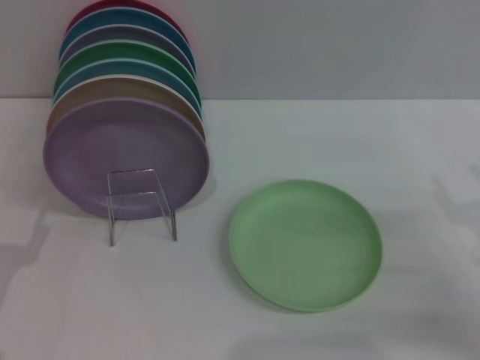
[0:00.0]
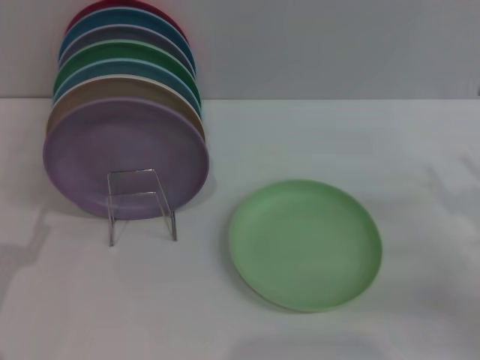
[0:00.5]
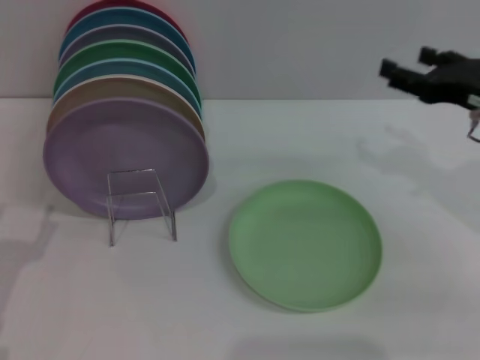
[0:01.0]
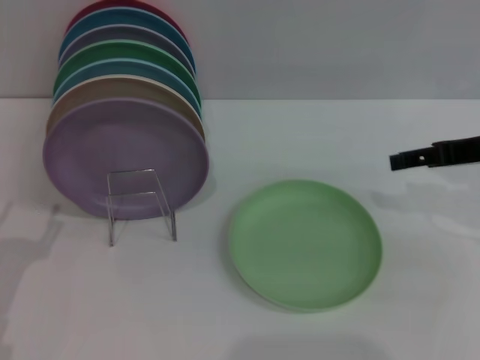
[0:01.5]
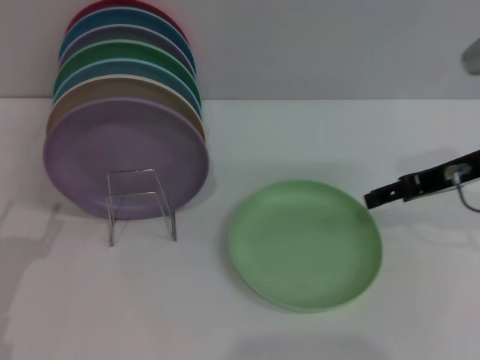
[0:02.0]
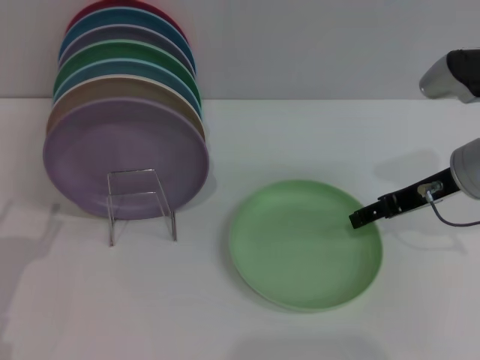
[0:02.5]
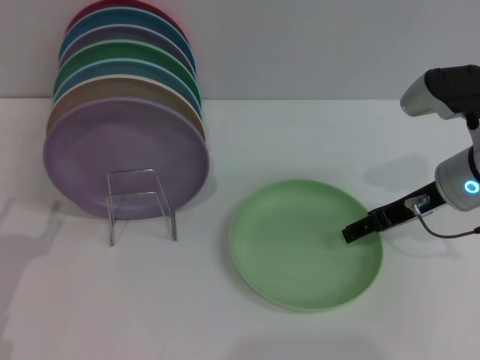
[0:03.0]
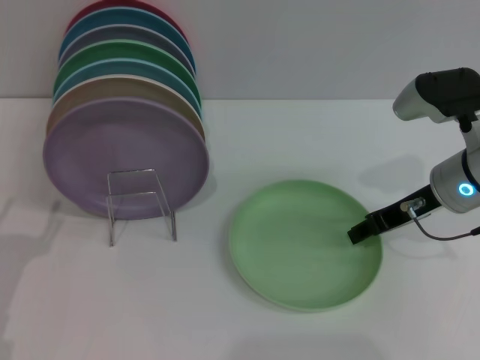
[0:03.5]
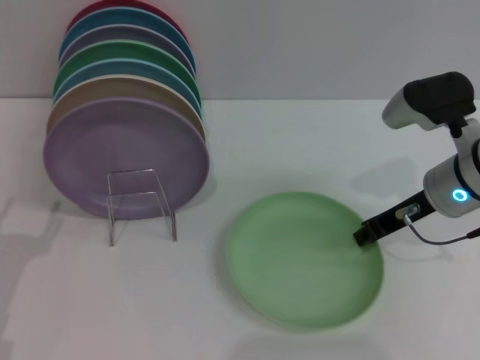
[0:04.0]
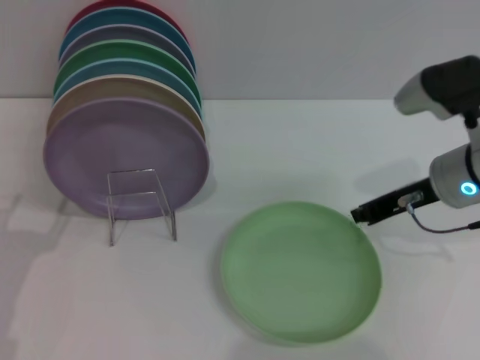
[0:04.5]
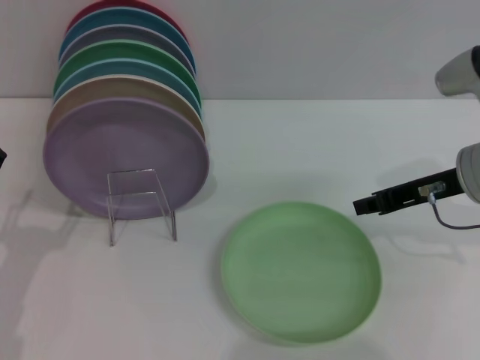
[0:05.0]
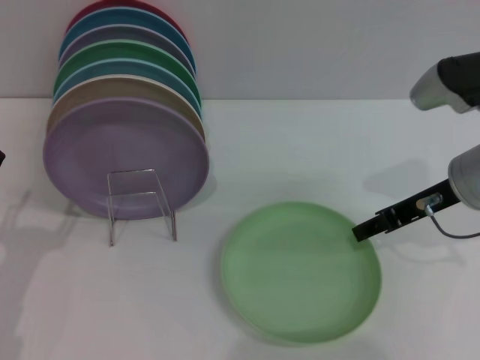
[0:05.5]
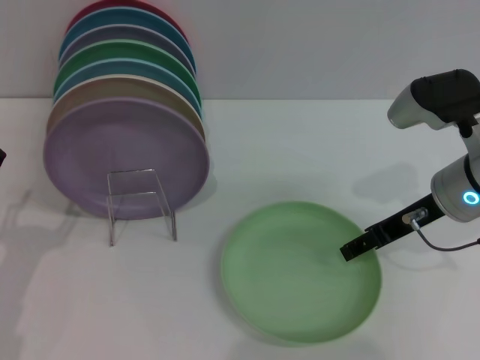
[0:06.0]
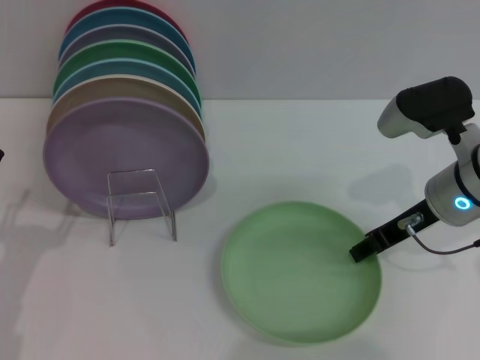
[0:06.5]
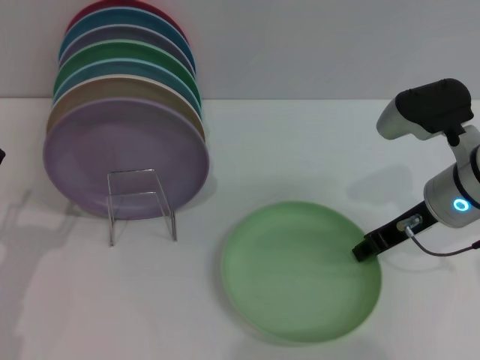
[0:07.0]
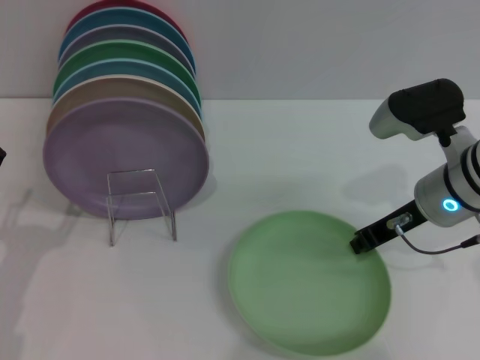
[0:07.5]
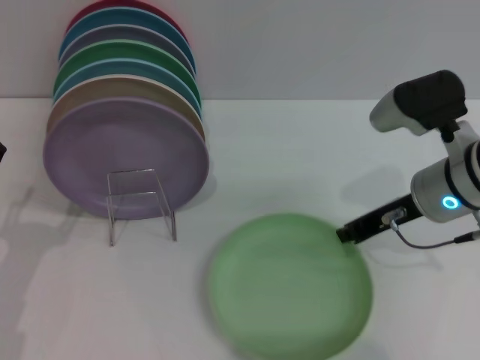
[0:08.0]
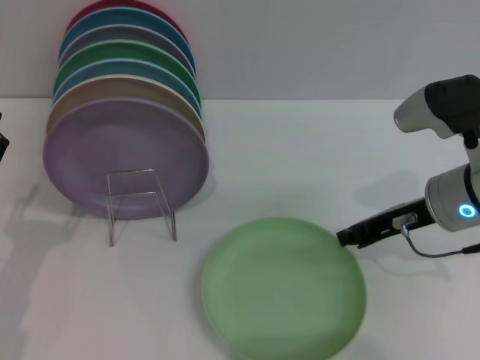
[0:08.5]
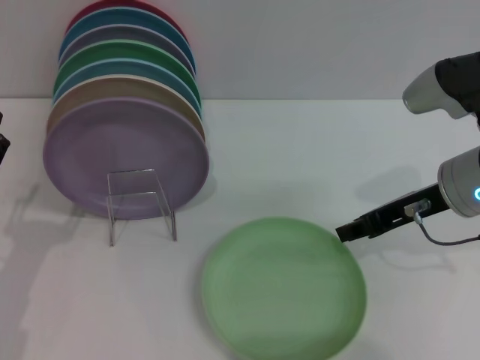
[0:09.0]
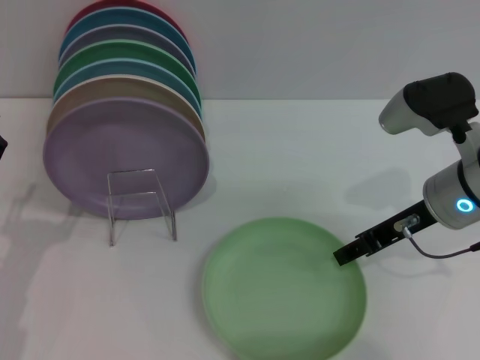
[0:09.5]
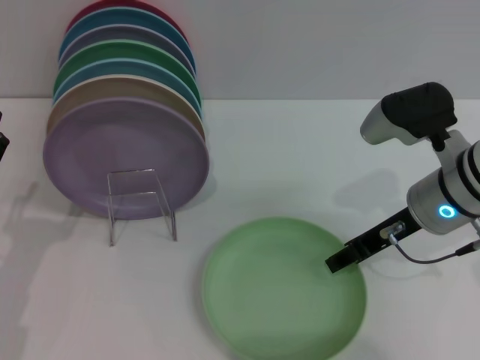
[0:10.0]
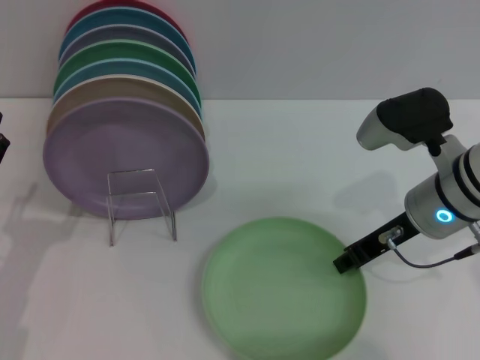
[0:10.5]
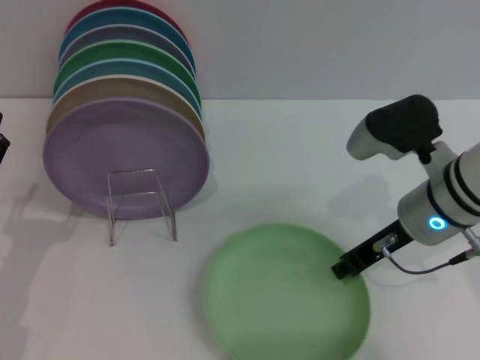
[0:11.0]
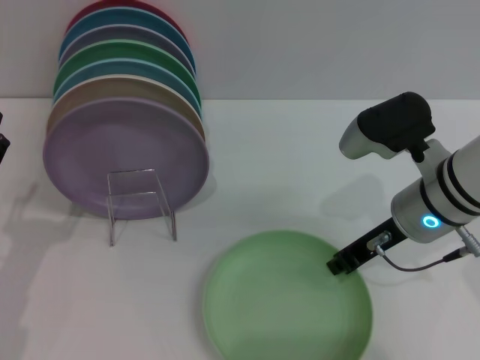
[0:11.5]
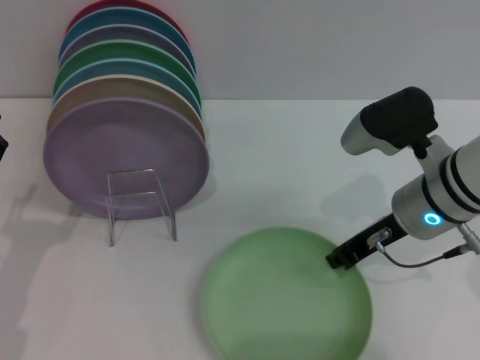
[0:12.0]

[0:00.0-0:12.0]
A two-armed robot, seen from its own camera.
Task of the whole recording: Grip the plate with one hand, pass it to the other, then set it on the shelf.
0:00.0 to 0:02.0: The right gripper heads forward, upward and to the left, covering some 15 cm.
0:02.0 to 0:04.0: The right gripper moves about 5 cm, and closes up.
0:04.0 to 0:06.0: The right gripper opens up.
0:06.0 to 0:08.0: The right gripper closes its fingers.
0:08.0 to 0:10.0: The right gripper opens its fingers.
0:10.0 to 0:12.0: The right gripper closes.

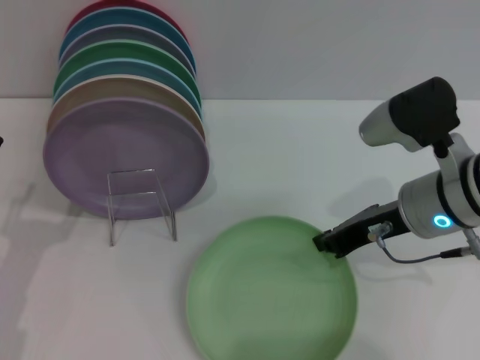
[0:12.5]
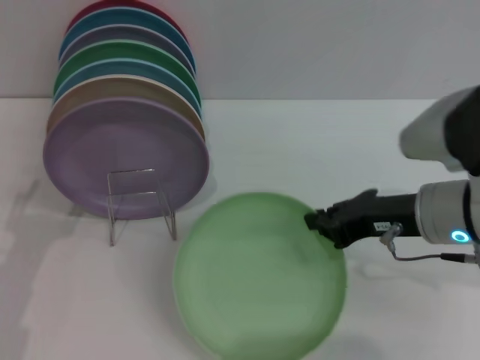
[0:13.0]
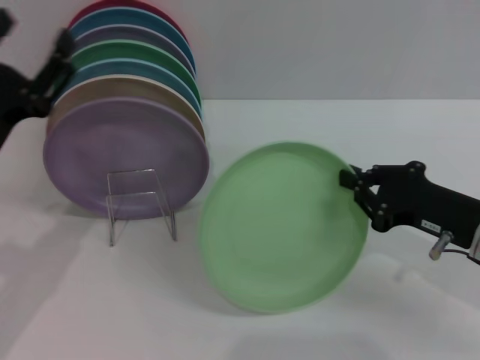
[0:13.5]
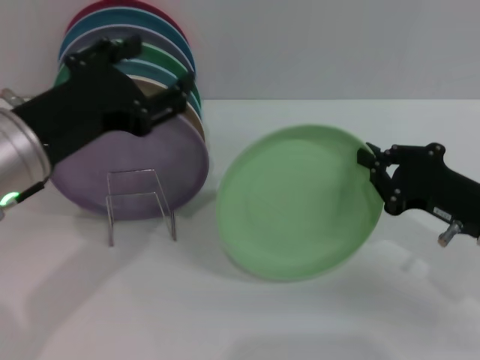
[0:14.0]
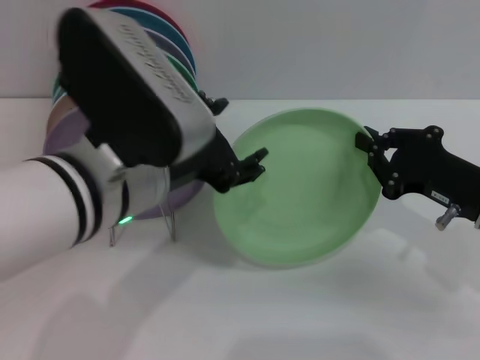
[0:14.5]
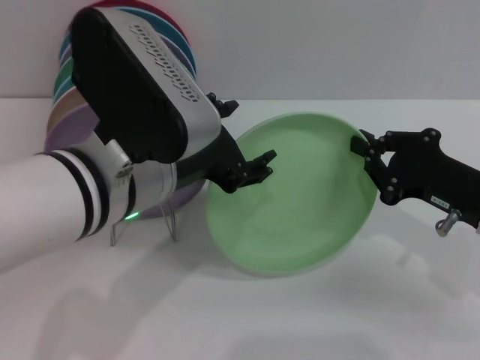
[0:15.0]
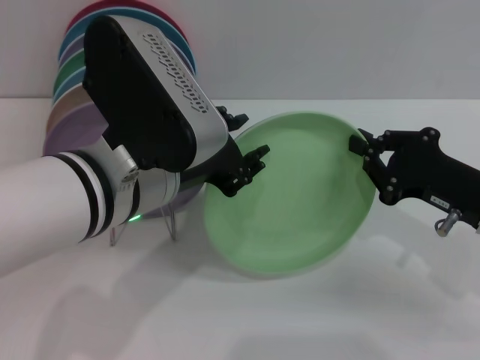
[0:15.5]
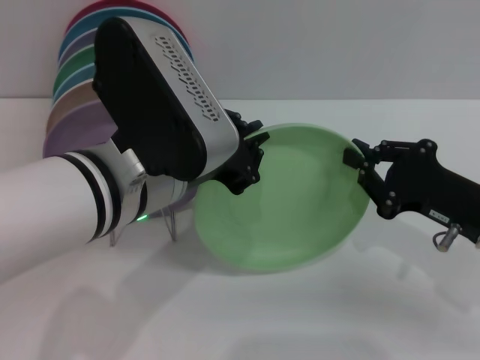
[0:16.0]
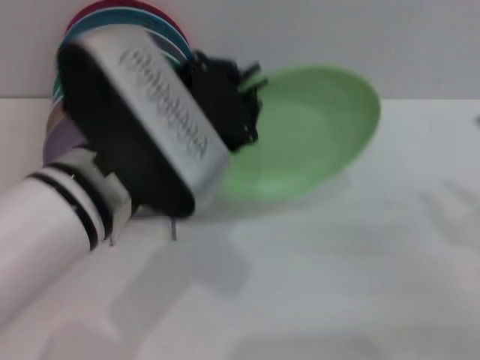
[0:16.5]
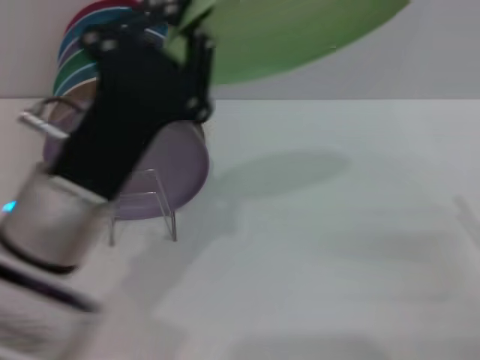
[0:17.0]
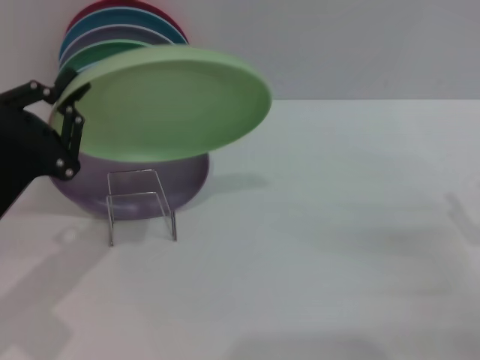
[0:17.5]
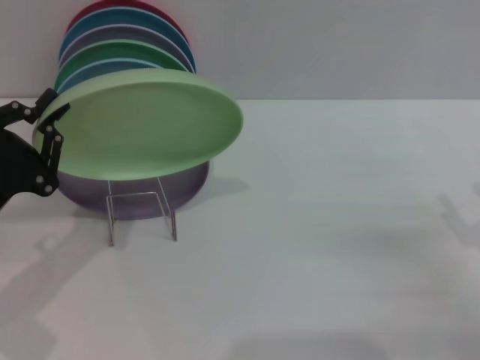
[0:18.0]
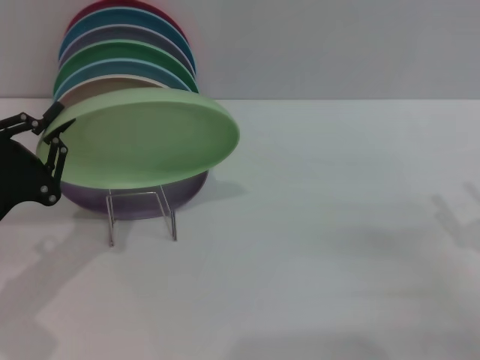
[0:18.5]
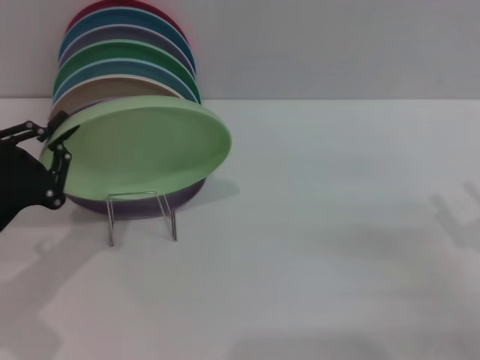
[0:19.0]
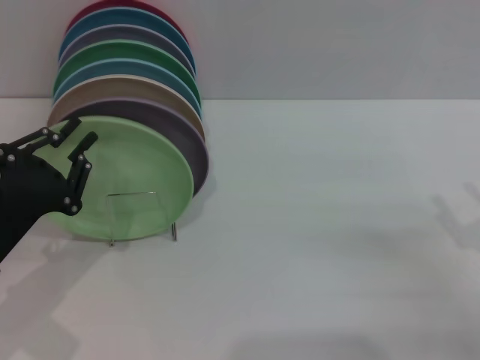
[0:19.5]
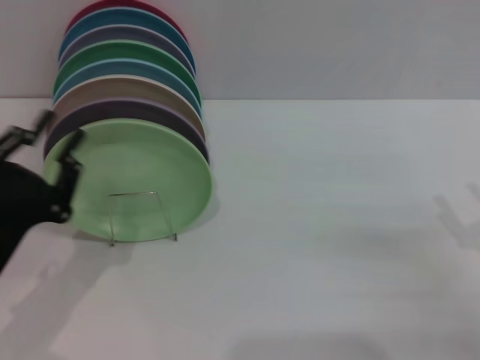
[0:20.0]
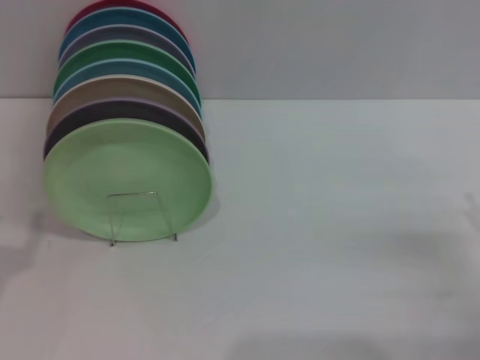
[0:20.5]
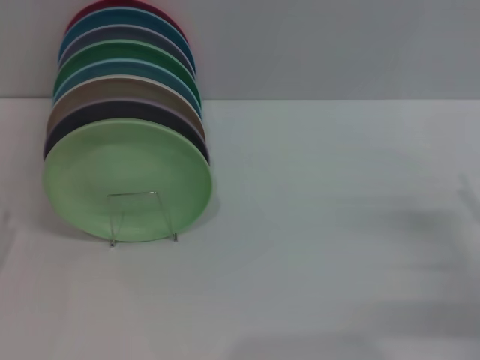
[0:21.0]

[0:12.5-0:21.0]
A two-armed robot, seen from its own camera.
Task of the whole recording: Grip the plate with one hand, pass it to the other, then set it on the shelf.
Step, 0:14.0 to 0:17.0: Pass the plate from the right gripper to the left gripper.
Step, 0:17.5 to 0:19.5: Place the plate on the shelf with the left gripper.
0:12.5 to 0:14.5: The right gripper goes about 10 cm to the right, while the left gripper is displaced to the right and upward by about 25 cm.
0:14.5 to 0:16.5: The left gripper closes. The right gripper goes some 10 cm backward and to the right, and opens up.
0:16.5 to 0:19.0: The left gripper goes roughly 20 cm to the left and downward. The right gripper opens up.
0:19.0 to 0:21.0: The left gripper is displaced backward by some 5 cm, and opens up.
